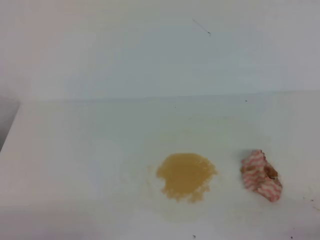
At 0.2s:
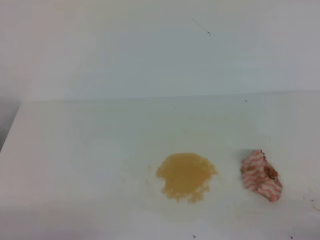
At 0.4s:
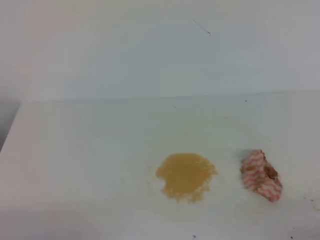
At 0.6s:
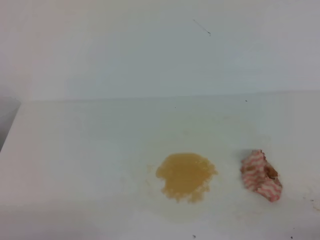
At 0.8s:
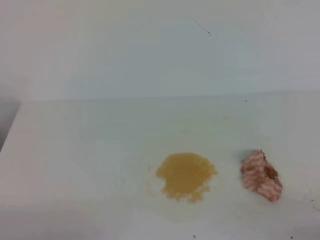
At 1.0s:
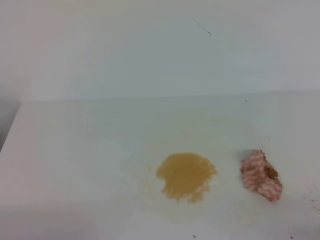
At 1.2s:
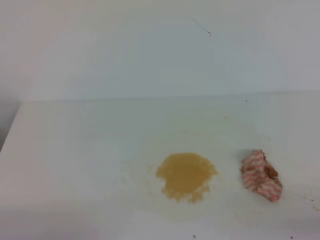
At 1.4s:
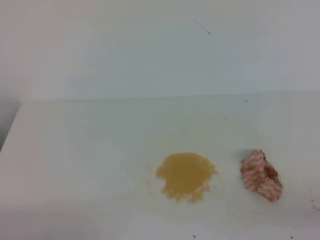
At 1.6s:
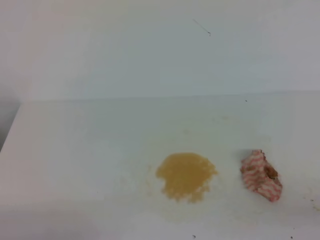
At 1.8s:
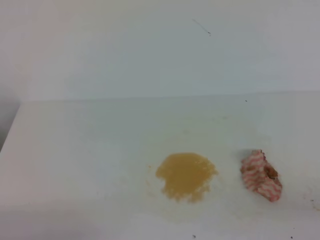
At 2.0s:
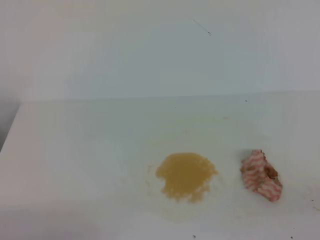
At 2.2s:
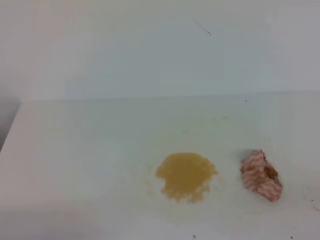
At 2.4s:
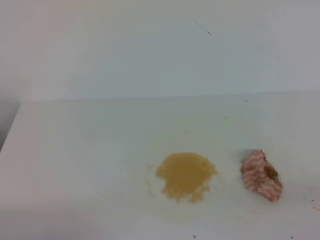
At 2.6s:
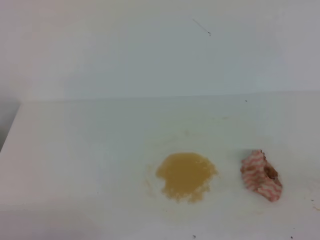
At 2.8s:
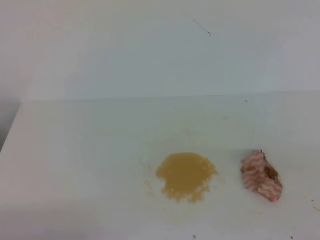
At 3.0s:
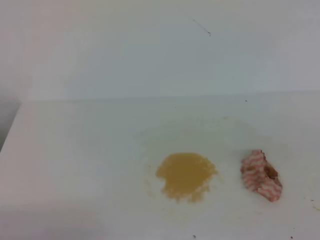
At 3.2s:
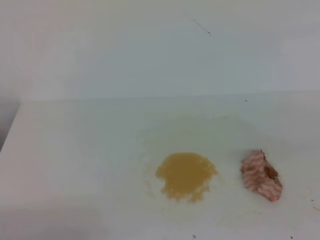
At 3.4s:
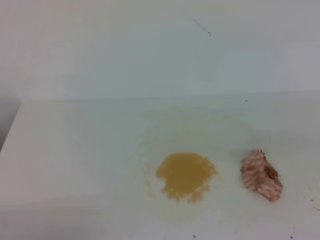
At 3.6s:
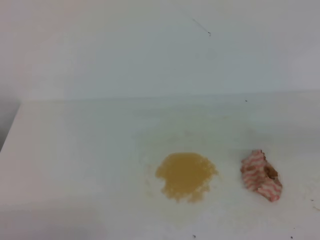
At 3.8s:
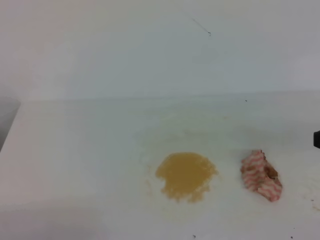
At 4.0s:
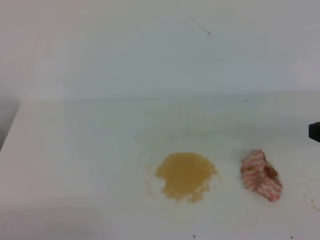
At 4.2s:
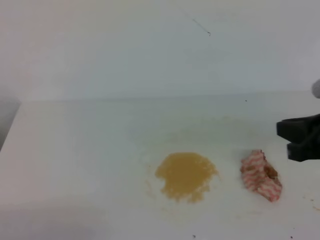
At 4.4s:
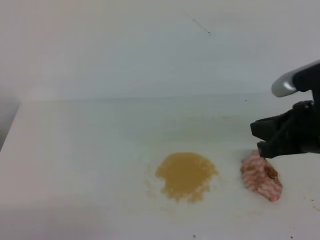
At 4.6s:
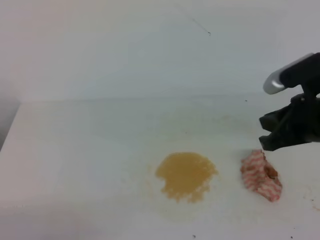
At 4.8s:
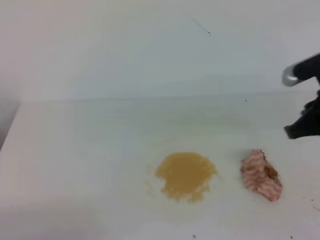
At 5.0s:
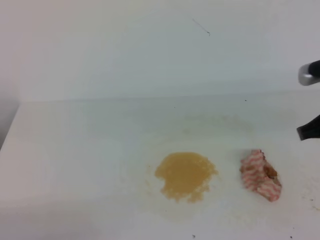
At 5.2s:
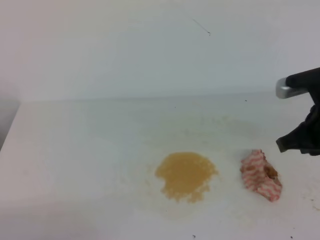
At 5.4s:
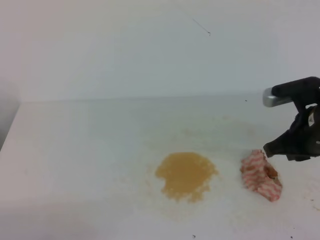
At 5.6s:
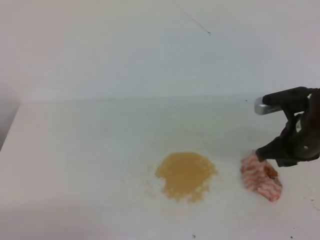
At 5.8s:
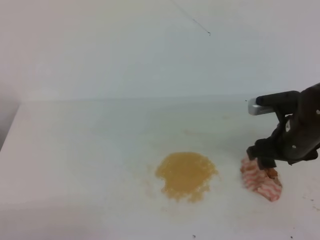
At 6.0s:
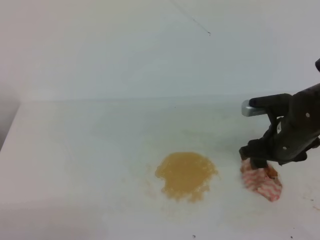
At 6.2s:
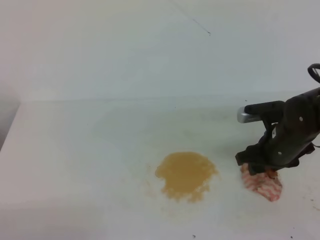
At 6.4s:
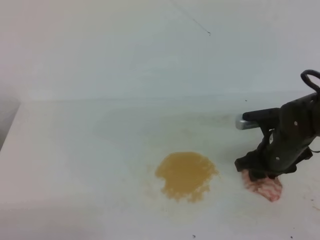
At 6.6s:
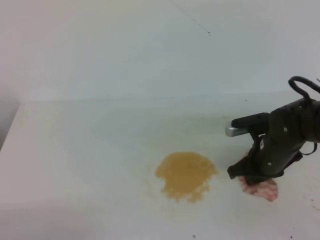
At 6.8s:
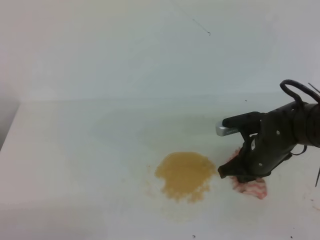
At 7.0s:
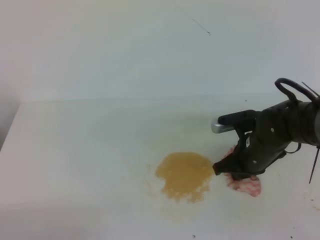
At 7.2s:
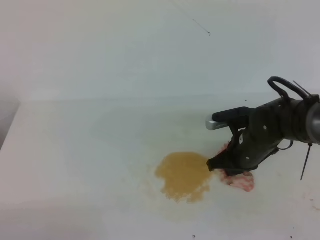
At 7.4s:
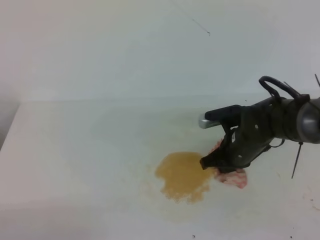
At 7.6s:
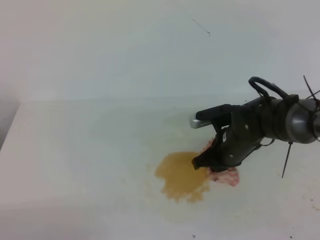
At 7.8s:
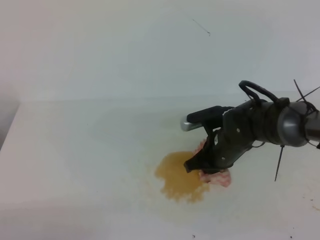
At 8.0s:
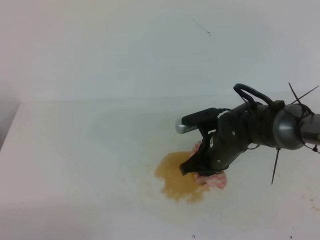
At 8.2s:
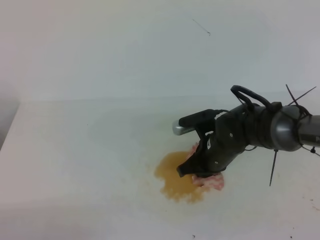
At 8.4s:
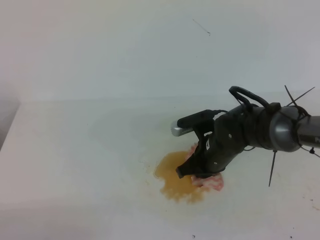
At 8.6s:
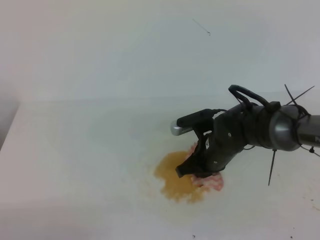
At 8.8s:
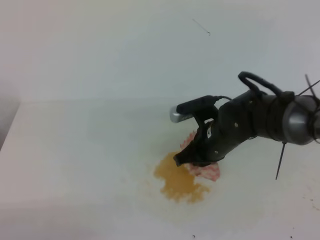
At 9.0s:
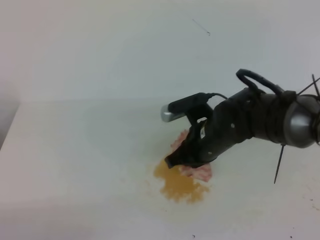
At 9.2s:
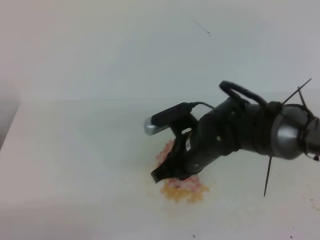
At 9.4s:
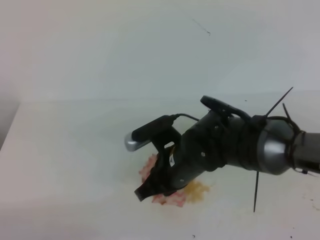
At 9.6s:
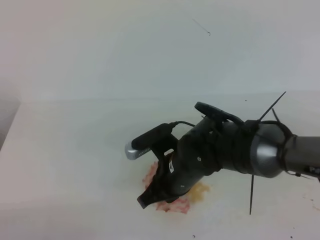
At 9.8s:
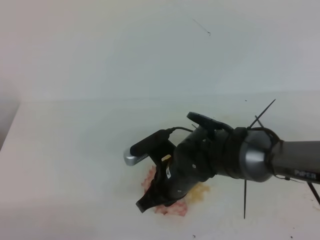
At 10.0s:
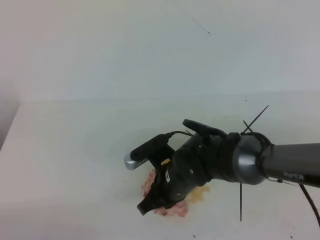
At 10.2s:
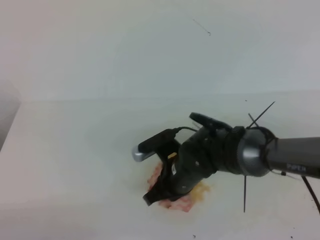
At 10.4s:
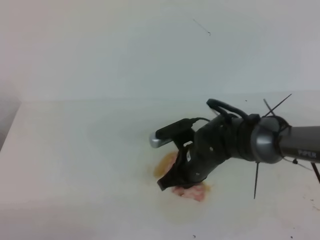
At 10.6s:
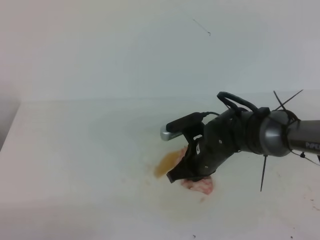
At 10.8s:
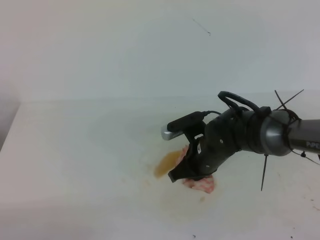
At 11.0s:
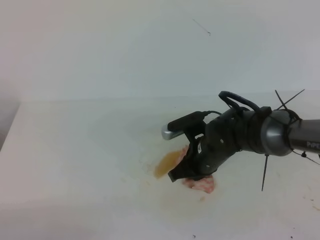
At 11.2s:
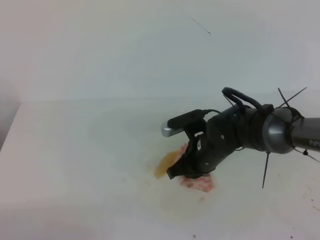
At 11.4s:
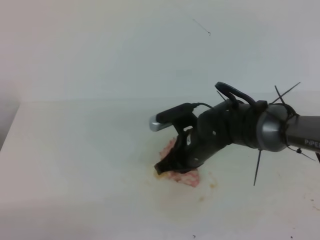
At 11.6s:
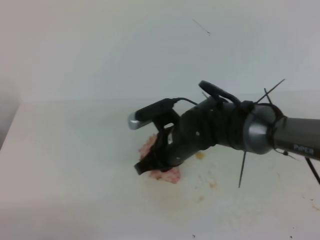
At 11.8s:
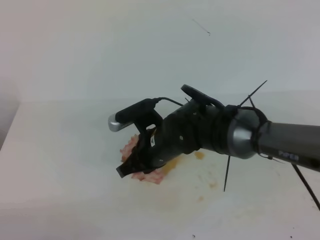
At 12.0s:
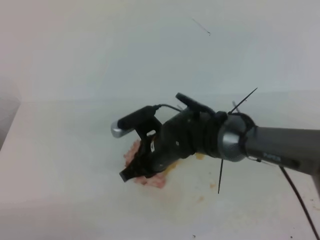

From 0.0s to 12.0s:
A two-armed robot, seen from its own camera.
From 3.0s to 4.4s: The right gripper travels forward and to the left by approximately 20 cm.
From 4.4s to 6.0s: The right gripper travels downward and forward by approximately 15 cm, and opens.
From 6.0s to 7.6s: The right gripper is displaced to the left and downward by about 10 cm, and closes up.
From 7.6s to 9.0s: The right gripper goes about 5 cm upward.
From 9.0s to 10.4s: The right gripper travels downward by about 5 cm.
From 10.4s to 12.0s: The right gripper heads to the left, covering about 5 cm.

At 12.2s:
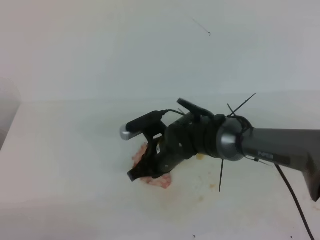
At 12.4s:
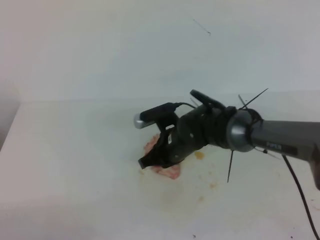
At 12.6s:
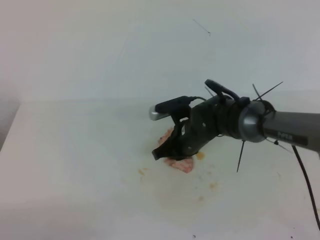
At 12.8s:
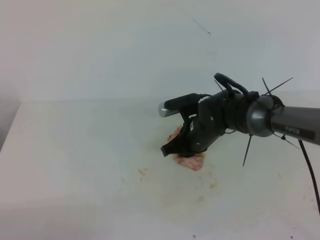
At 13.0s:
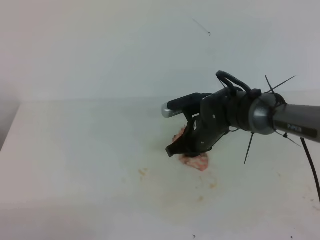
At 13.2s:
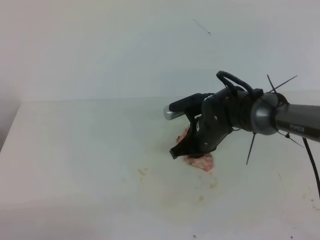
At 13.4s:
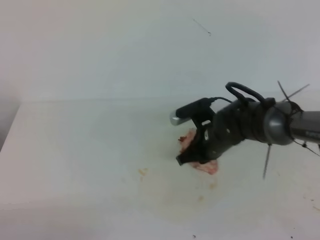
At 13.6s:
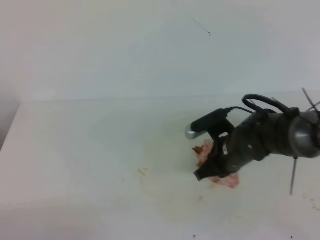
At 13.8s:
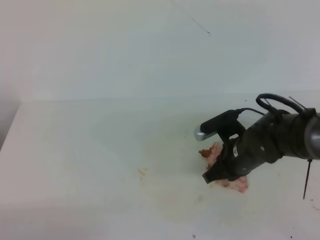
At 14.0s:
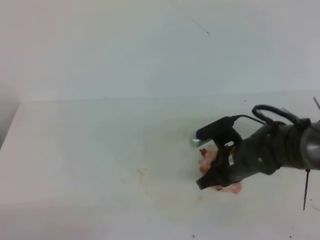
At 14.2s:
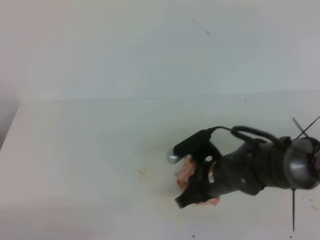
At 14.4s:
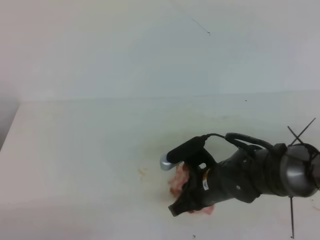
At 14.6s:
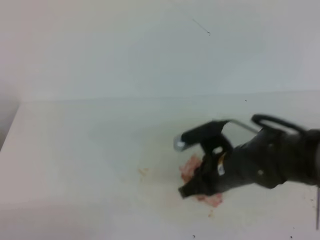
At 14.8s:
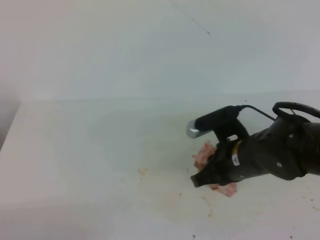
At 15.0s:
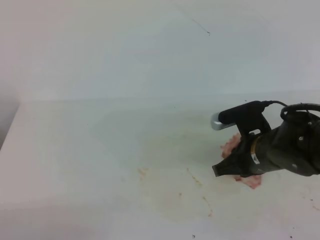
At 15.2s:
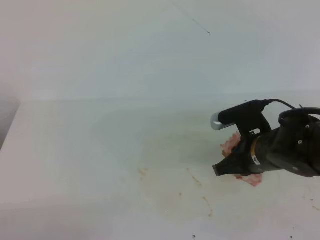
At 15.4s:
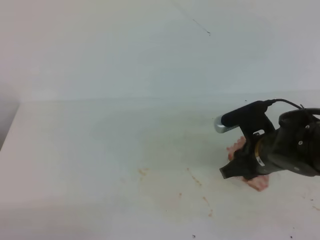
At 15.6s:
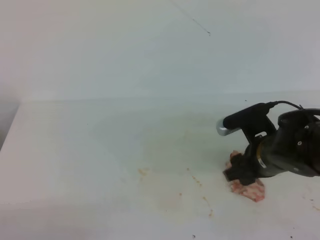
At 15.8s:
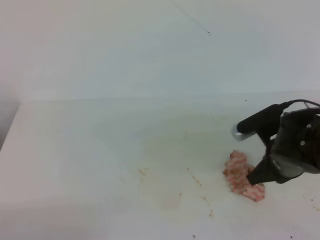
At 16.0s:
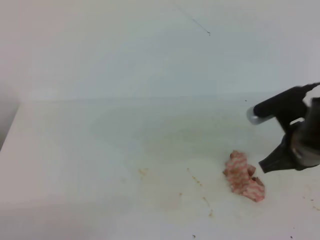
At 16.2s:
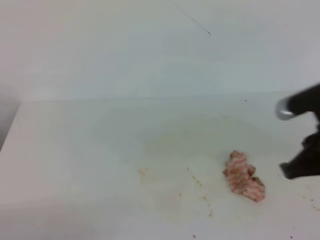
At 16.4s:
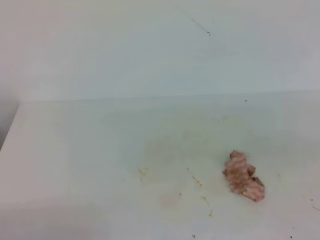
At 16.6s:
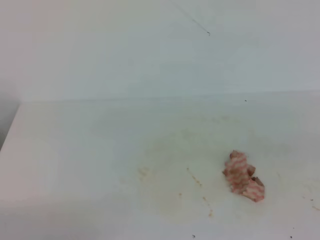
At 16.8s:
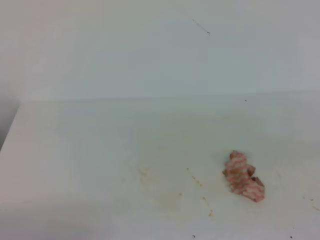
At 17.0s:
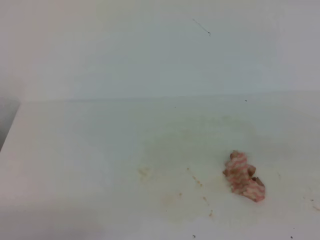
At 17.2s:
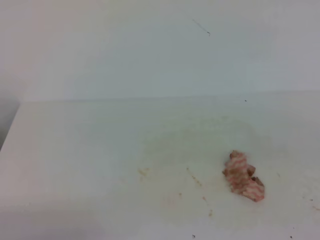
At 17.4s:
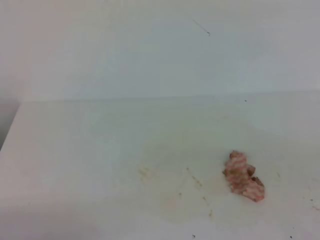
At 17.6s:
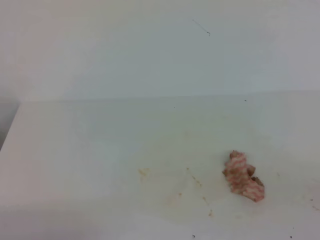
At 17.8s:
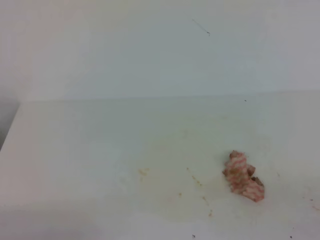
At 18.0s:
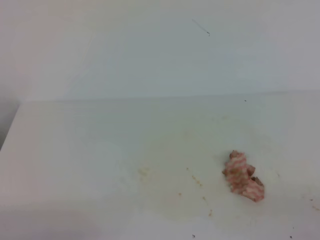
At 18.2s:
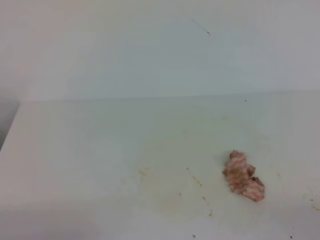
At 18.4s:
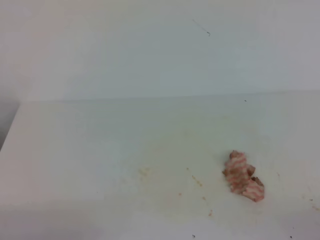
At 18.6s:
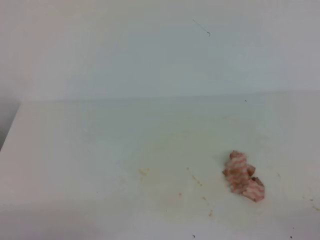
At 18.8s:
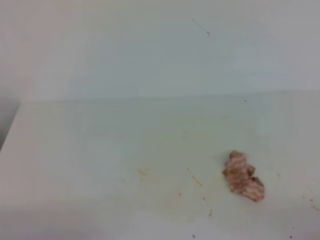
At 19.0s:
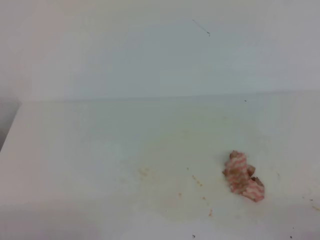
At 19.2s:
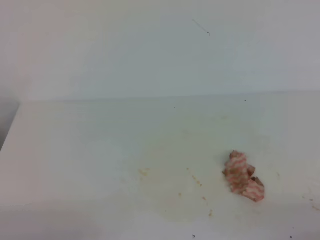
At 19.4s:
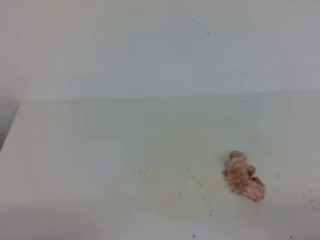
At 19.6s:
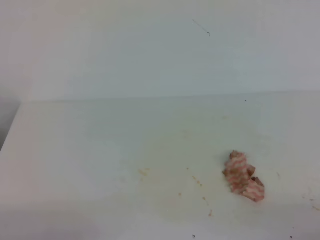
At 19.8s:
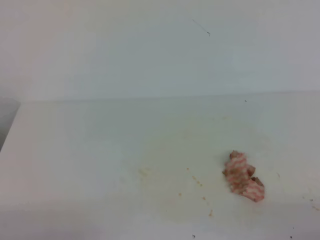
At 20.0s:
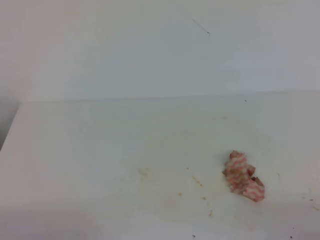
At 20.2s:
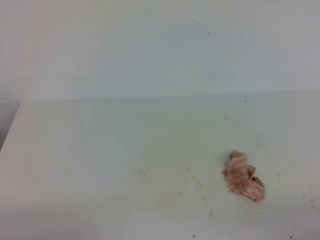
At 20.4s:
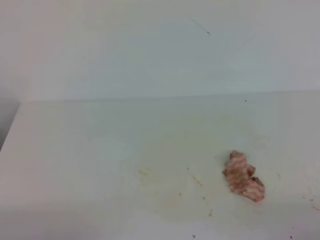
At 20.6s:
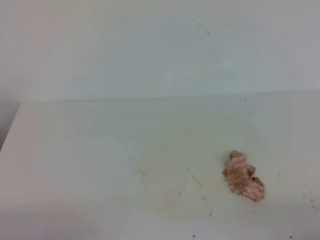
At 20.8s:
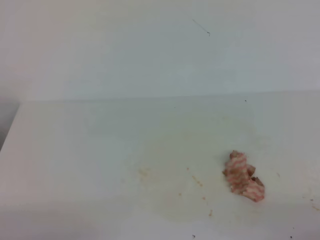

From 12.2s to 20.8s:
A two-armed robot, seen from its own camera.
From 12.2s to 13.6s: The right gripper goes about 10 cm to the right.
From 13.6s to 15.0s: The right gripper is displaced backward and upward by roughly 10 cm.
From 15.0s to 16.6s: The right gripper heads backward, to the right and upward, covering approximately 25 cm, and opens, then closes once more.
From 19.4s to 20.8s: Neither gripper changes place.
